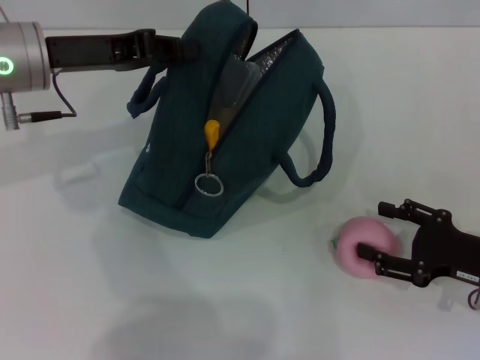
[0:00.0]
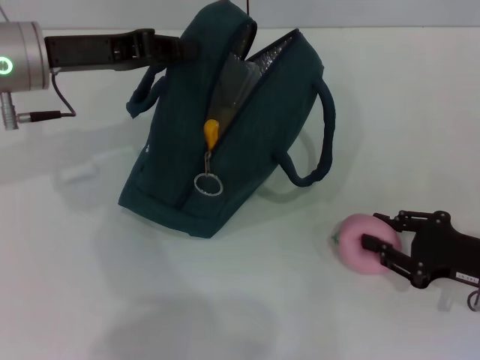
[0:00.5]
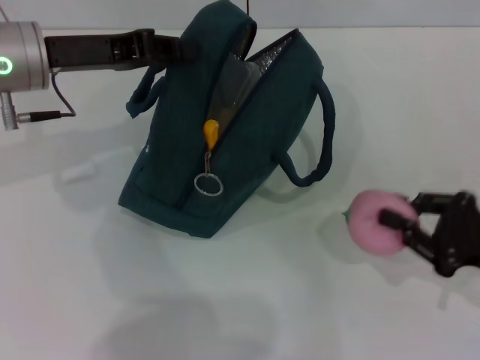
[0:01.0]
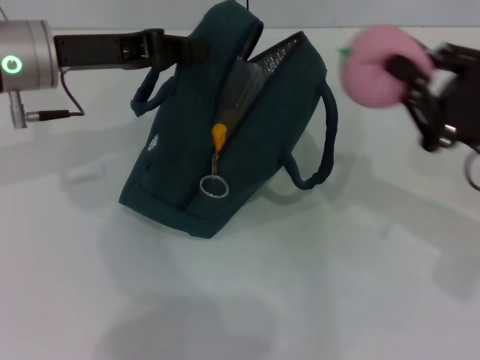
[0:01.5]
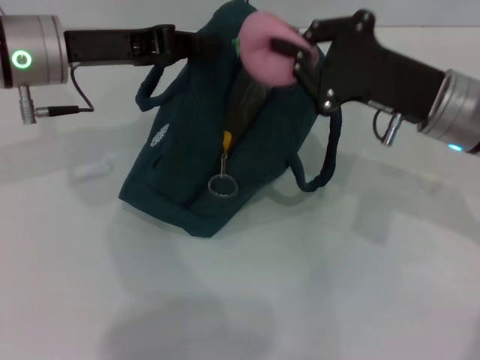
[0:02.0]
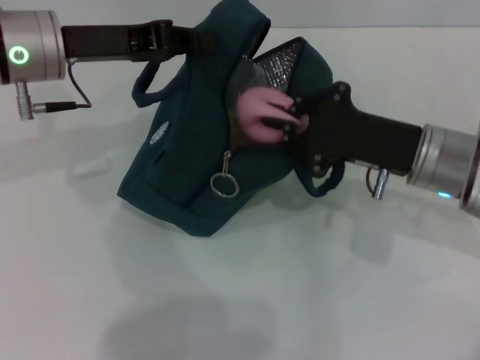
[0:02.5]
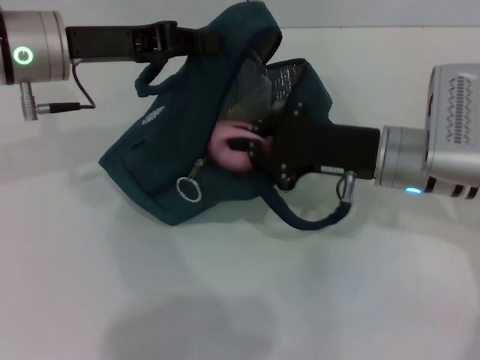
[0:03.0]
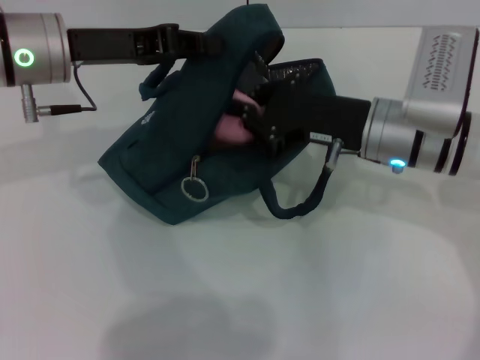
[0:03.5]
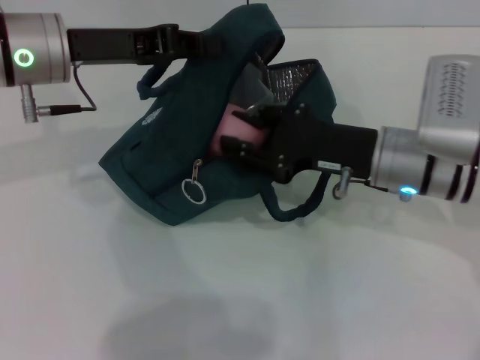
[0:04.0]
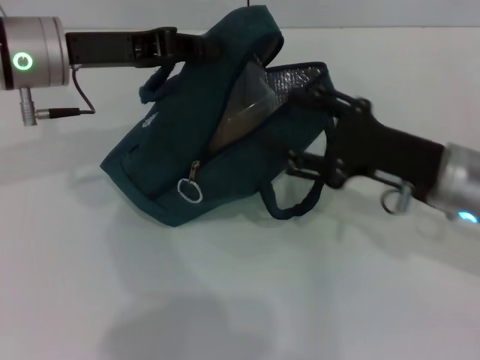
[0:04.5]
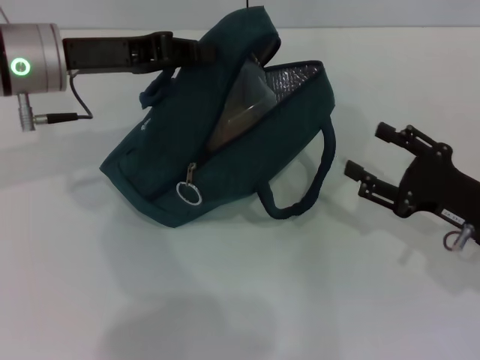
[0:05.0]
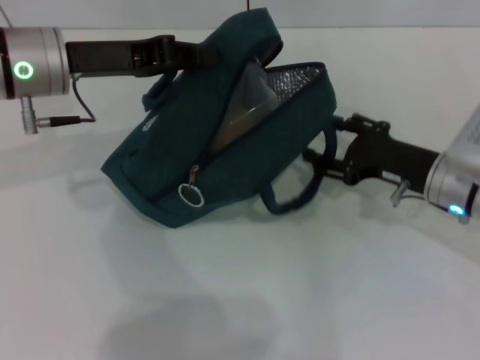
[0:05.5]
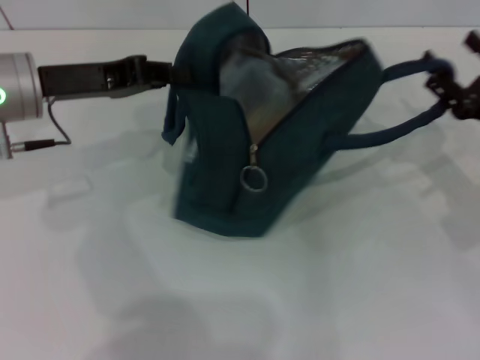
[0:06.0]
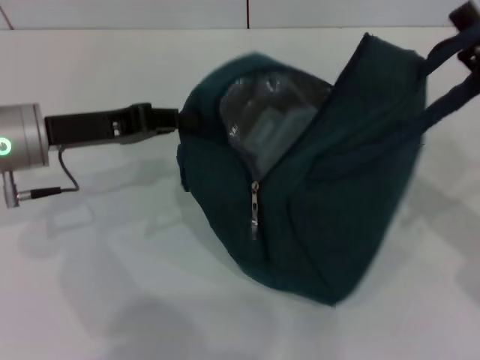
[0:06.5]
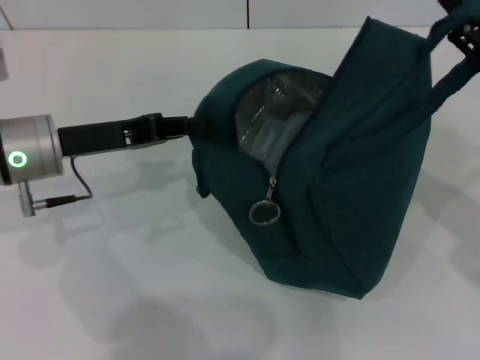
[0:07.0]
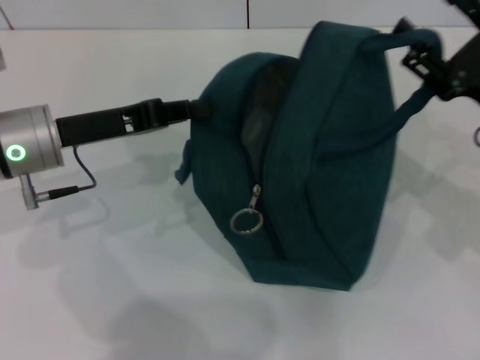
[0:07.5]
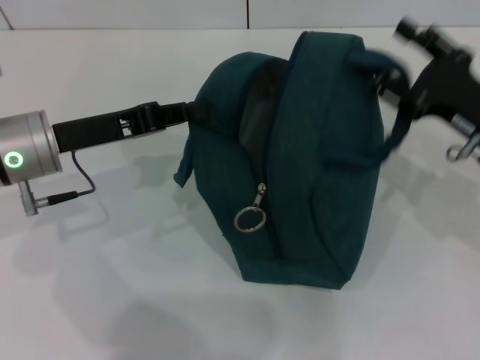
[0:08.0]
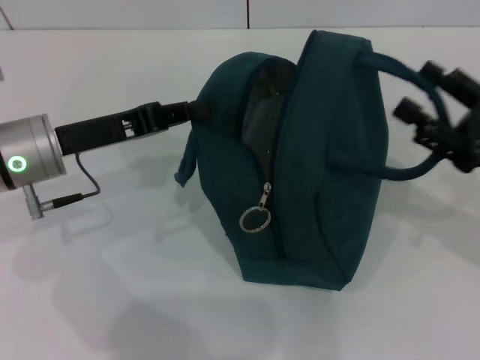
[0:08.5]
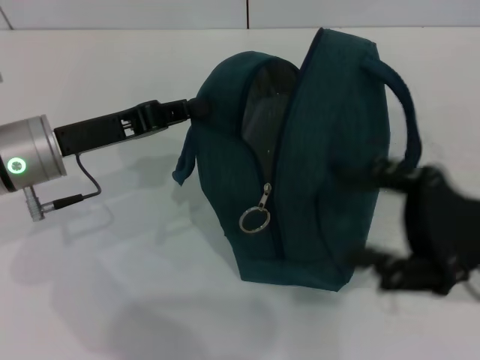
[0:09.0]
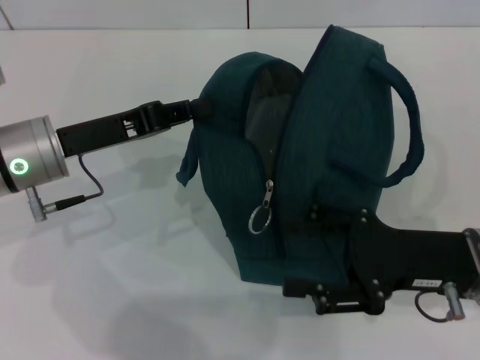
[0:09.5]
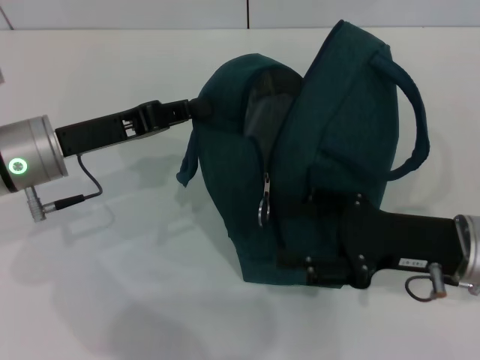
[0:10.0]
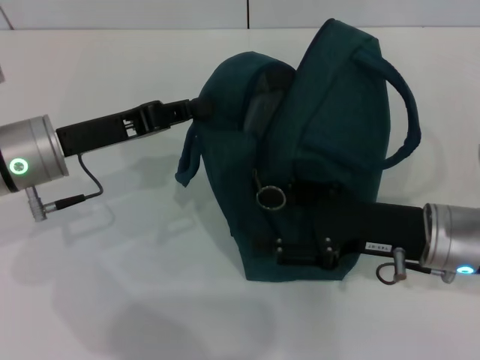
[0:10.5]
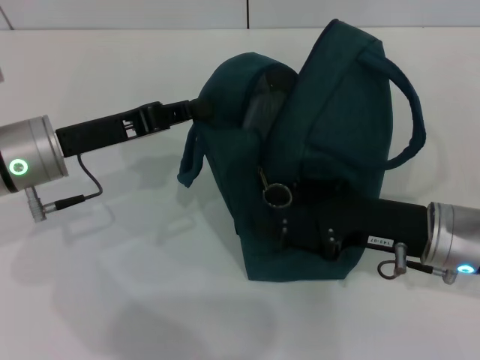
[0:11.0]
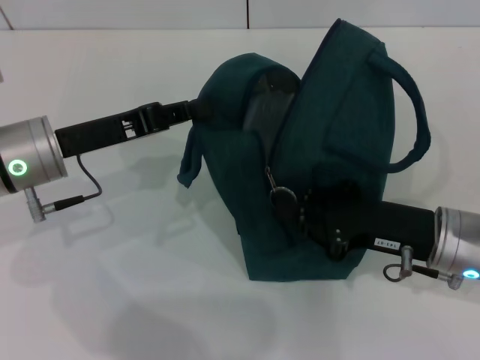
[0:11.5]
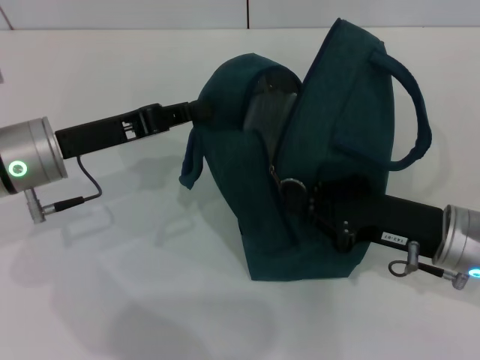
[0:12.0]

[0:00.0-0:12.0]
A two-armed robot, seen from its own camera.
Step, 0:04.5 to 0:08.5: Hold the lunch bag with your right hand.
0:00.0 to 0:02.0: The right gripper goes some 20 cm upward, to the left and forward, and closes up.
0:02.0 to 0:04.0: The right gripper moves roughly 5 cm.
0:04.0 to 0:06.0: The right gripper swings left and right, about 15 cm each way, with 2 reversals, and opens.
0:06.0 to 0:08.0: The left gripper ends up approximately 5 cm from where it was.
0:08.0 to 0:10.0: The right gripper goes some 5 cm backward.
0:10.0 to 0:12.0: The right gripper closes.

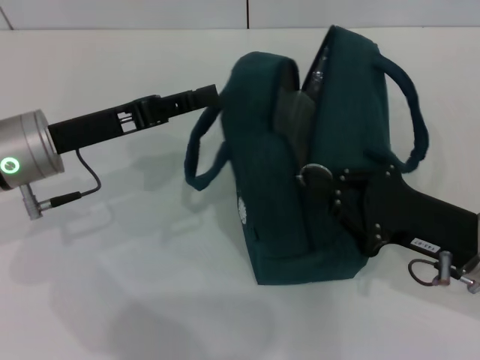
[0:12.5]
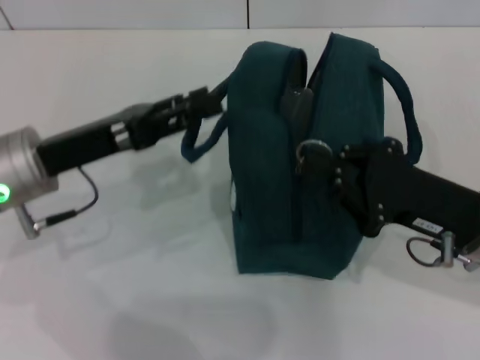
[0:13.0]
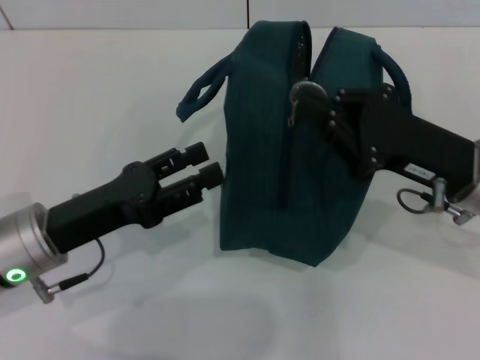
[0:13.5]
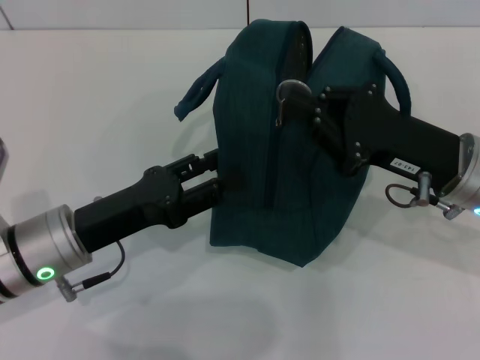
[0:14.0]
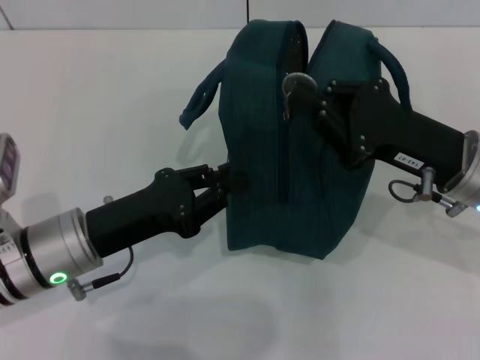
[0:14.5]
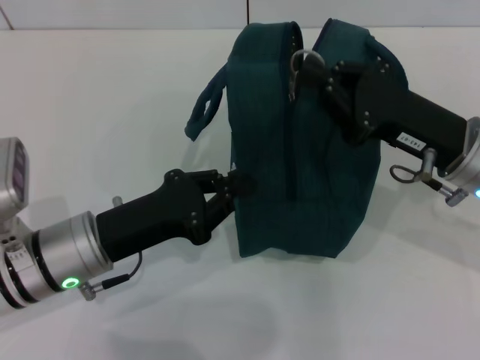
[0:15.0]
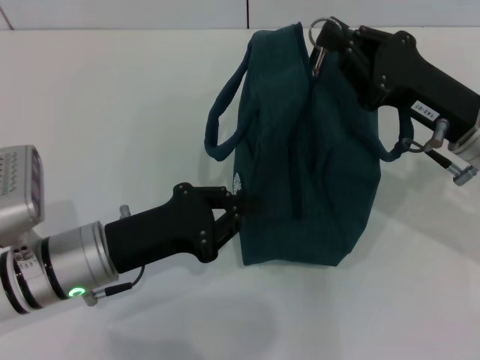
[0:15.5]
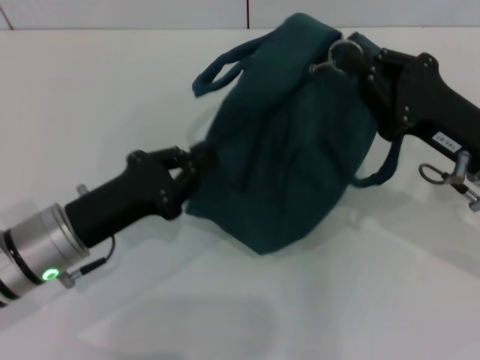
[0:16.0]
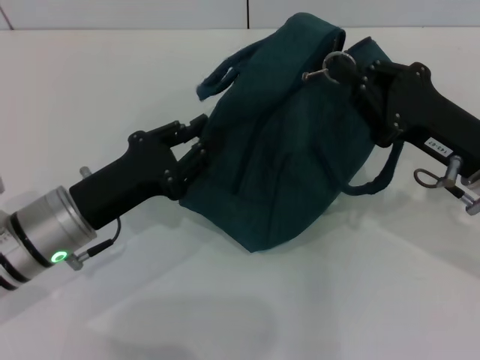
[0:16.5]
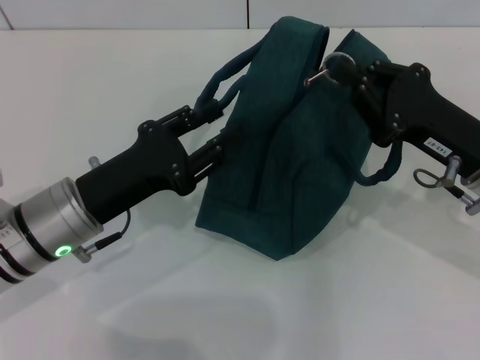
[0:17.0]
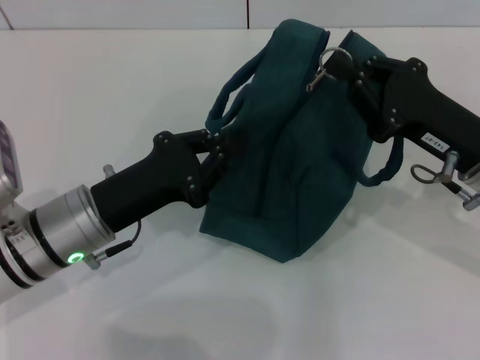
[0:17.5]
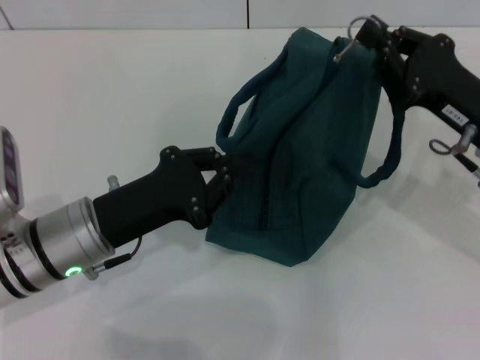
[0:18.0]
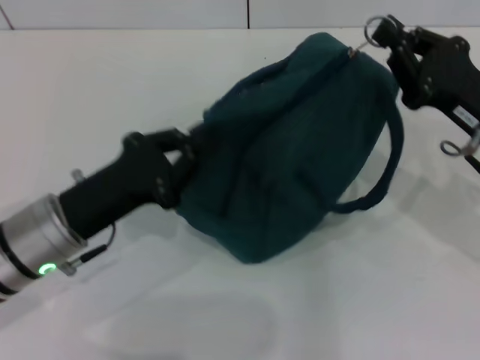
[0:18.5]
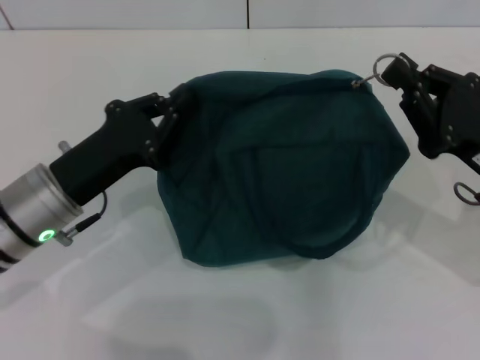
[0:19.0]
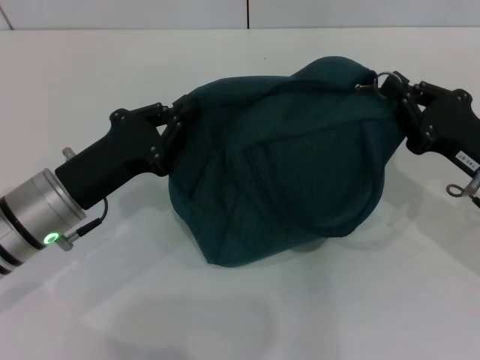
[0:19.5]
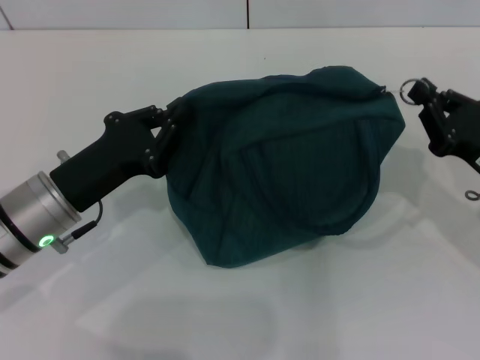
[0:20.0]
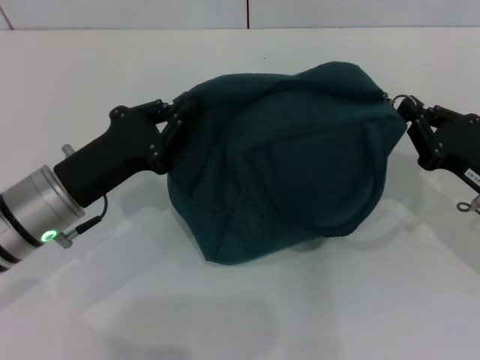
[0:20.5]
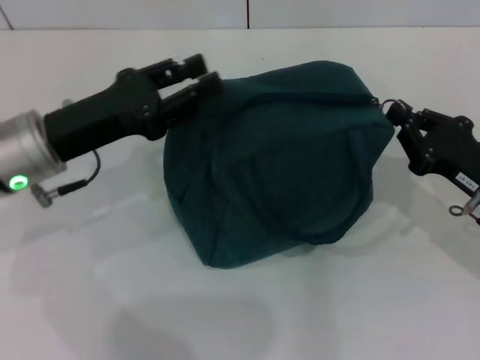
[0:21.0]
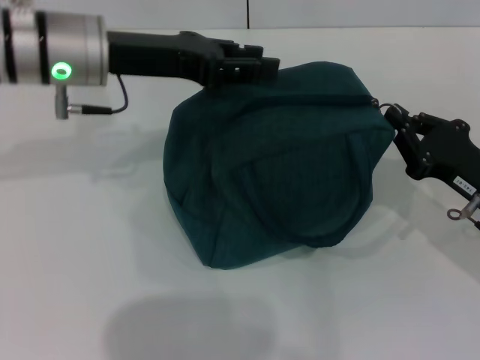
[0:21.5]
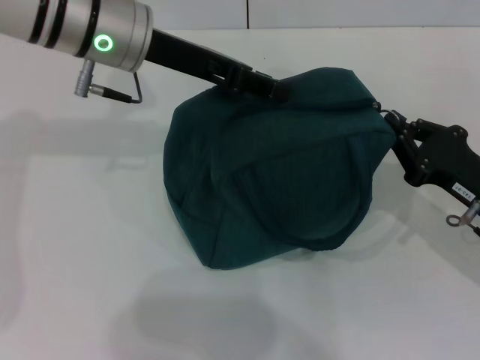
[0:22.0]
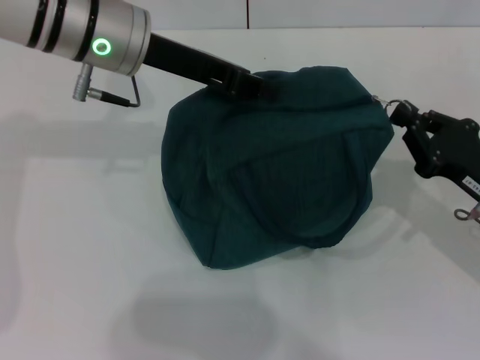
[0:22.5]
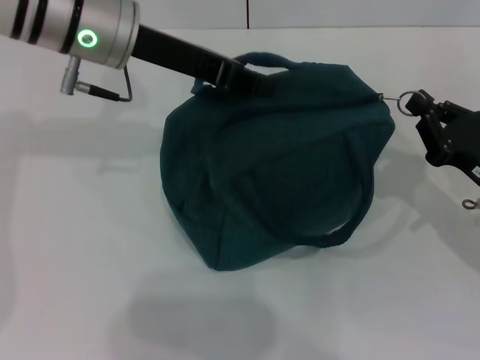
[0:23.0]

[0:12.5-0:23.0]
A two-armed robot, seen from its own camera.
0:12.5 to 0:14.5: The left gripper is displaced backward and downward by approximately 10 cm, and opens and closes again, while the right gripper shifts by approximately 5 cm.
0:16.5 to 0:19.0: The left gripper opens and closes again.
0:19.0 to 0:21.0: The left gripper shifts by roughly 5 cm, and opens up.
0:21.0 to 0:23.0: The left gripper travels upward, forward and to the right by some 15 cm, and closes its fingers.

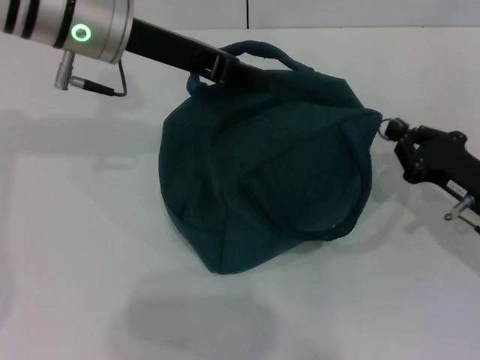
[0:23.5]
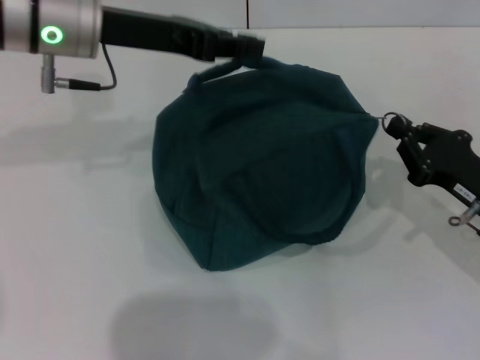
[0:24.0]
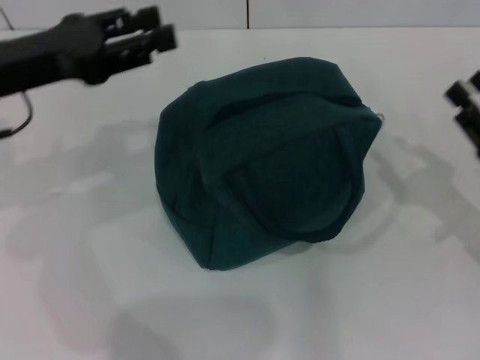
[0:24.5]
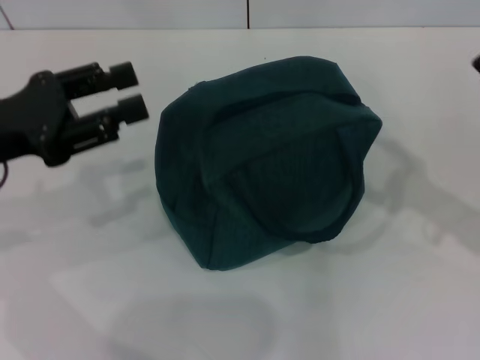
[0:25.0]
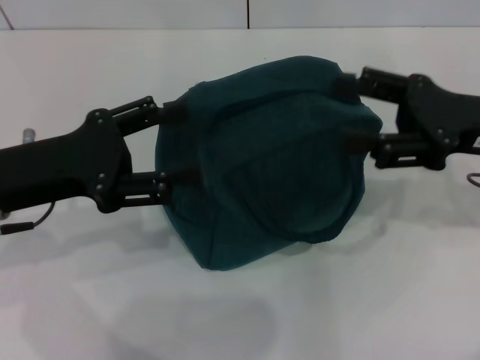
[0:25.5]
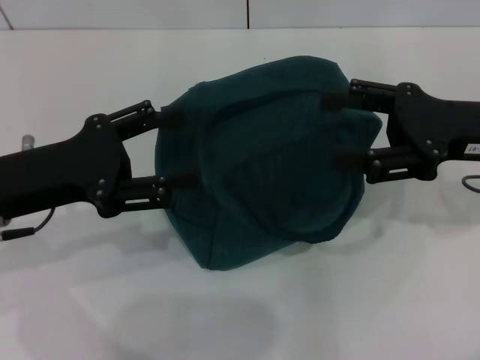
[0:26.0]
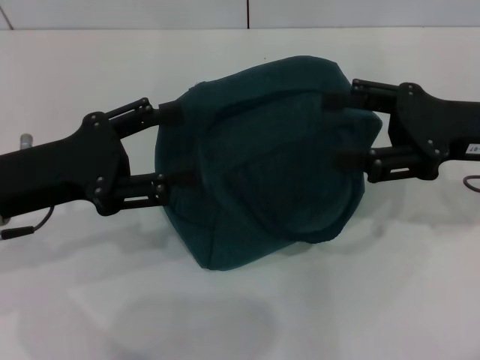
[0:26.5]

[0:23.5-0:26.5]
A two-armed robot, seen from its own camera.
0:23.5 to 0:25.0: The right gripper is displaced upward by roughly 10 cm, and opens its fingers, while the left gripper is displaced to the left, backward and downward by roughly 20 cm, and opens up.
0:25.0 to 0:26.5: The left gripper opens up. Meanwhile the right gripper travels to the left and forward by approximately 10 cm.
